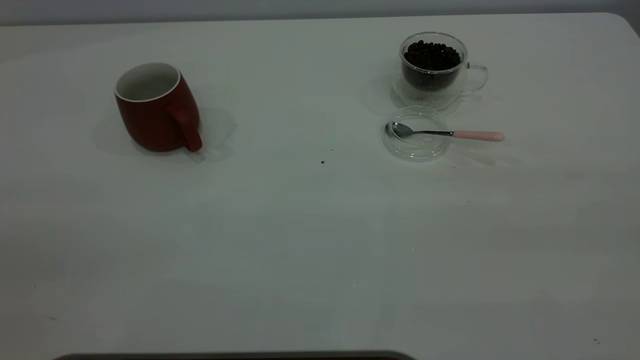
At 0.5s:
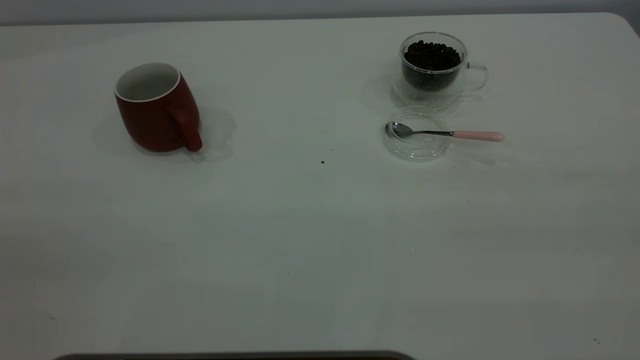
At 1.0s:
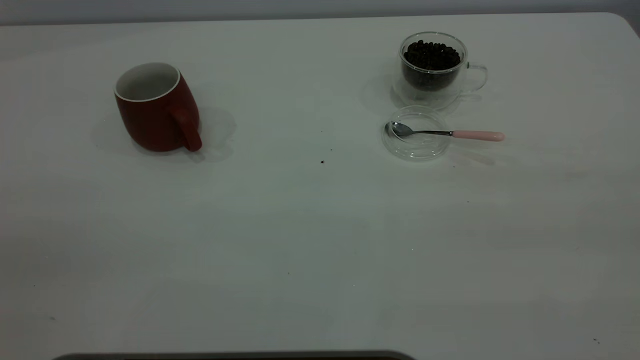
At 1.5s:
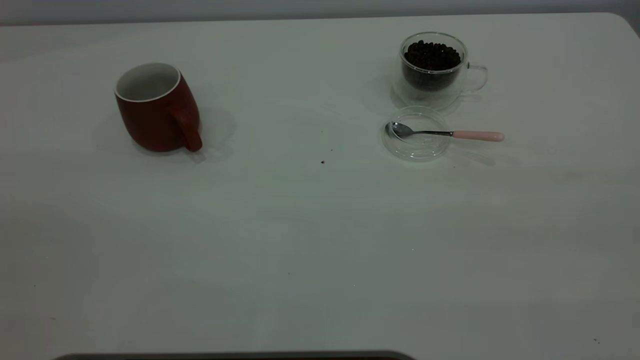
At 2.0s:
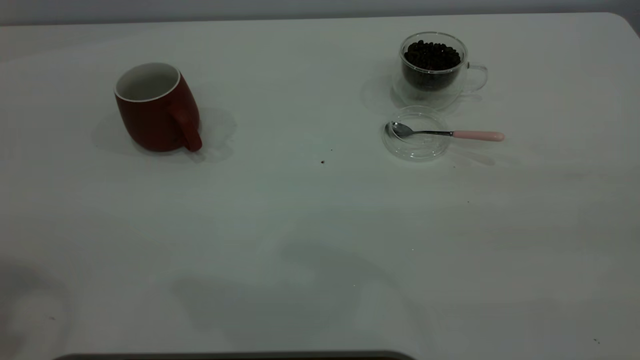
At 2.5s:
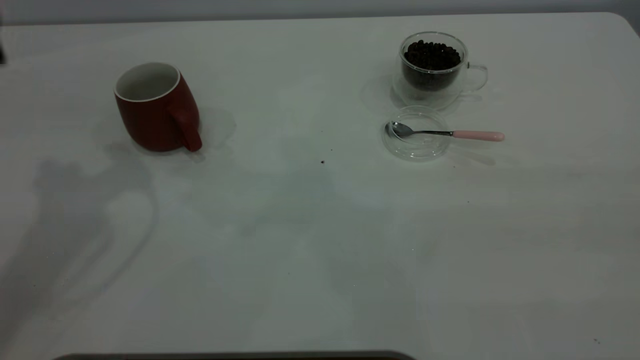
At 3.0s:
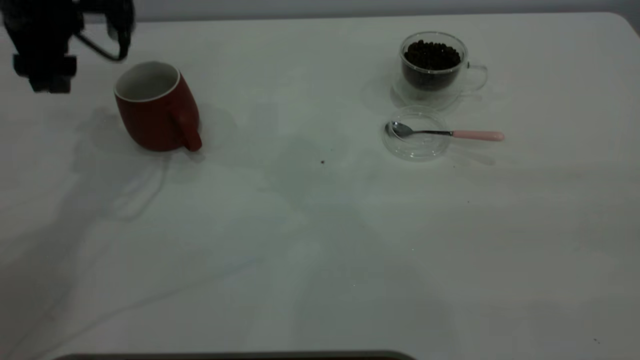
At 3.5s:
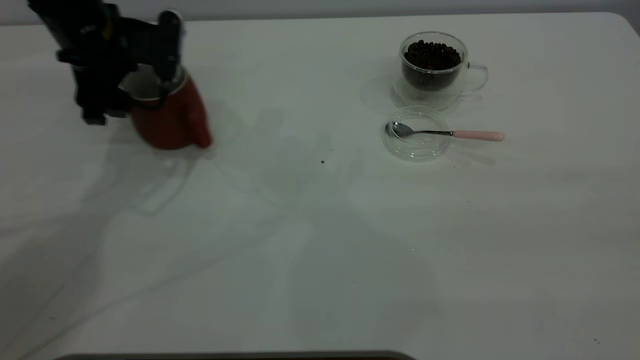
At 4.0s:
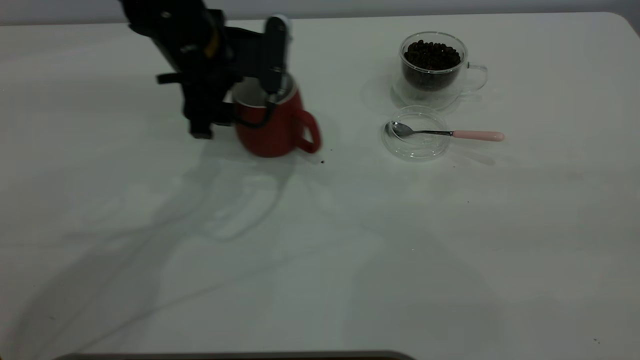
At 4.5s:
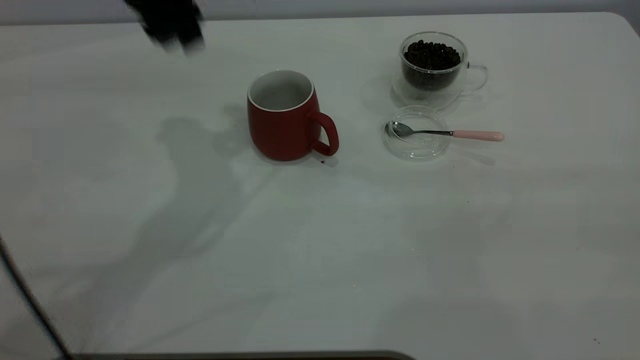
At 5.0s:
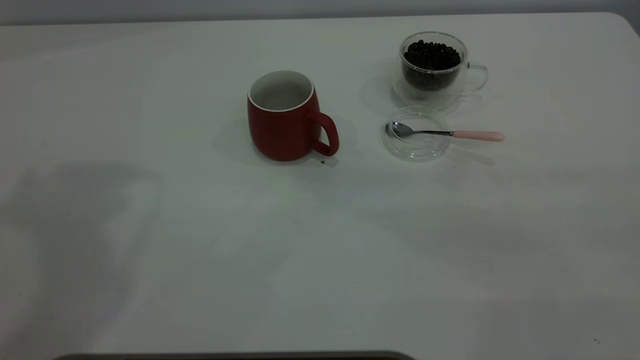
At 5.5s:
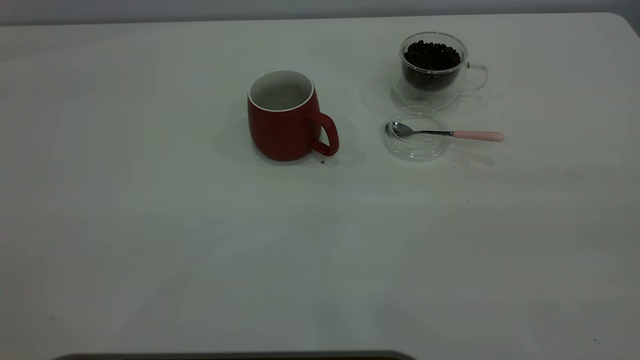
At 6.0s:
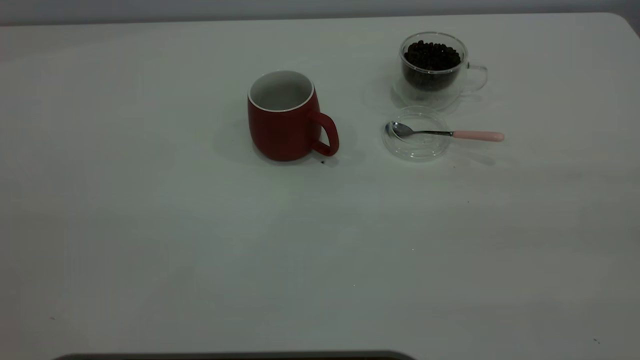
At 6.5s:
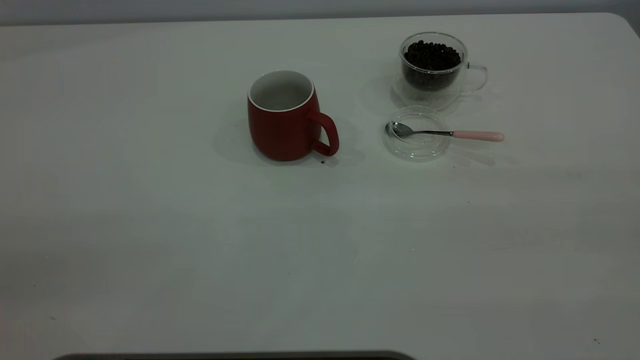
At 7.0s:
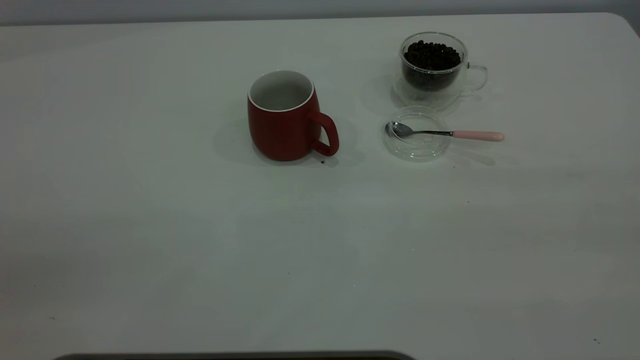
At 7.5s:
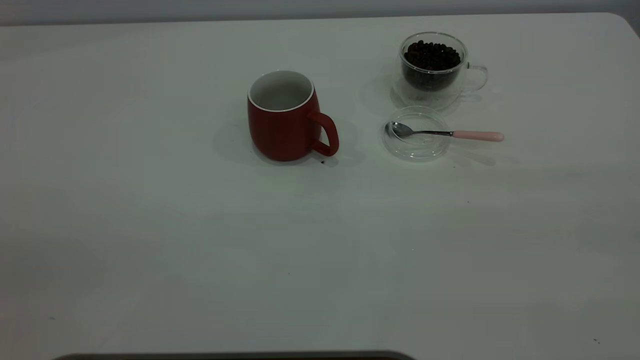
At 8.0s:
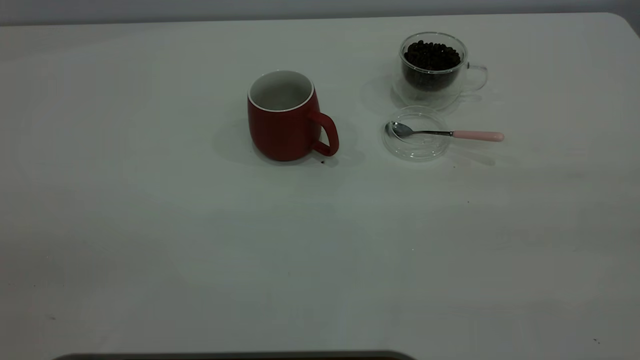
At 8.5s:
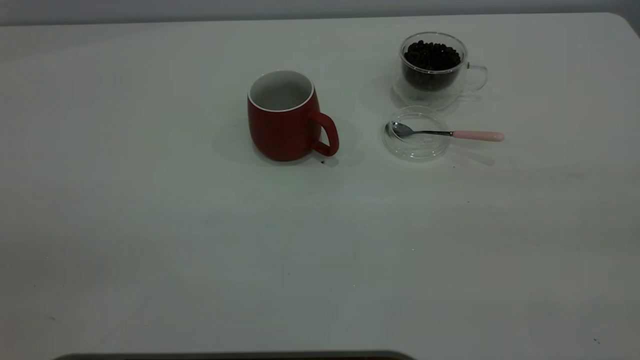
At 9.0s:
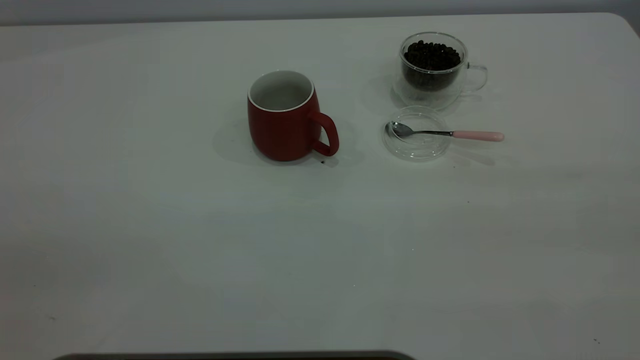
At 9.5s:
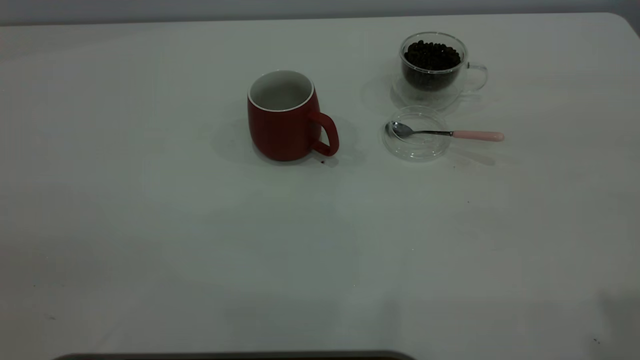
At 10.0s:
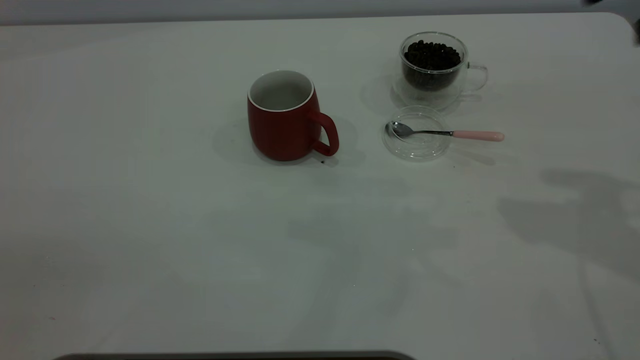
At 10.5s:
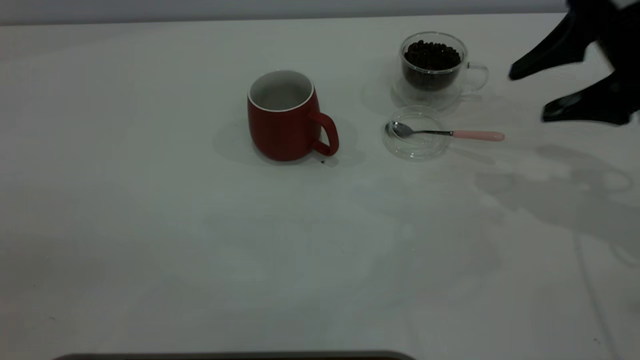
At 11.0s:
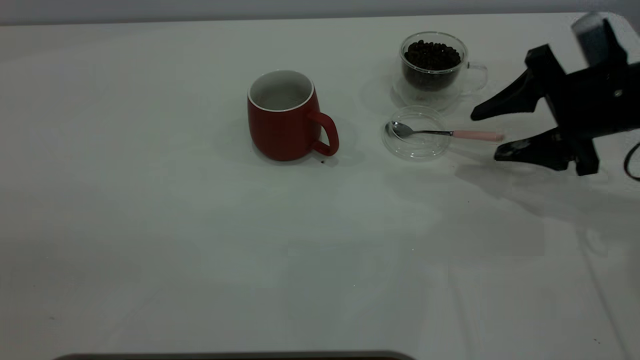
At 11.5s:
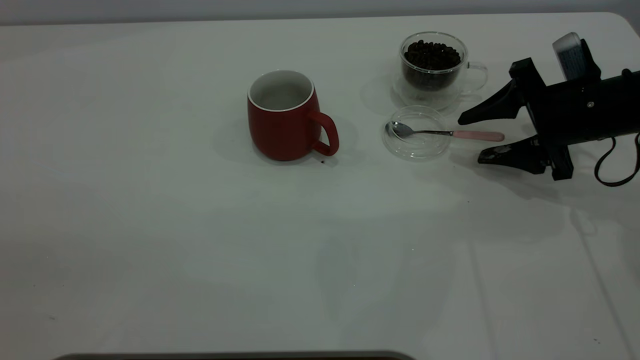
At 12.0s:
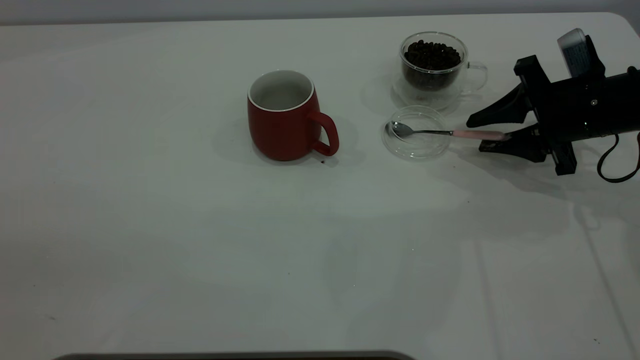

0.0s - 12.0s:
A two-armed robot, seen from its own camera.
Task of the whole recording: the left gripper place the red cup in the center of the table, the right gripper take the pink spoon from the cup lid and scoop out the coffee beans from the coffee cup and put them into the red cup, the right gripper put the spoon back into the cup lid.
Step, 0.0s - 4.0s: Move the cup to the center of view.
2.0s - 4.0s: The left gripper is displaced downward, forward and to the right by approximately 40 cm.
4.0s - 6.0s: The left gripper moves backward, upward and to the left, about 50 cm.
10.0s - 12.0s: The right gripper heads downward, covering approximately 25 cm, and closes up.

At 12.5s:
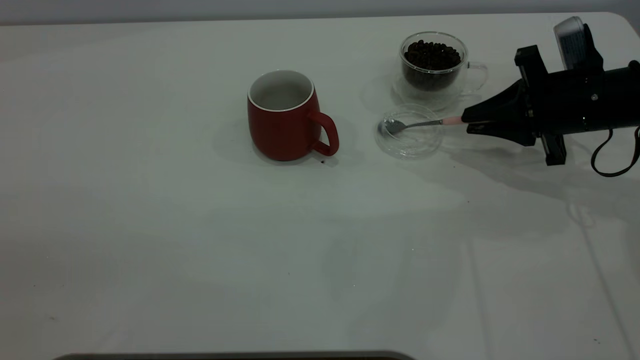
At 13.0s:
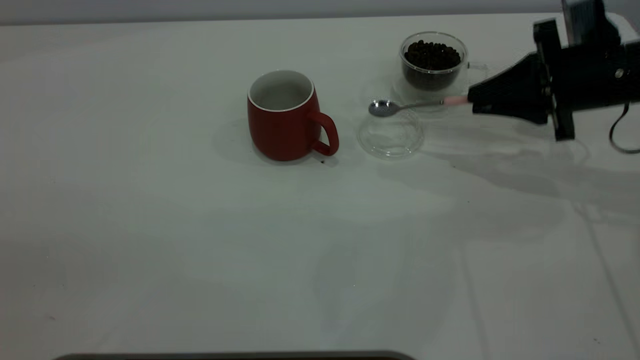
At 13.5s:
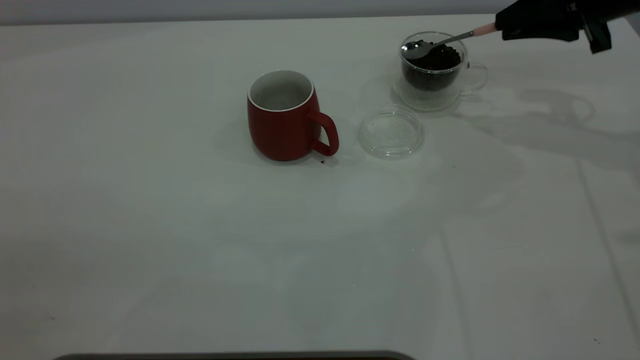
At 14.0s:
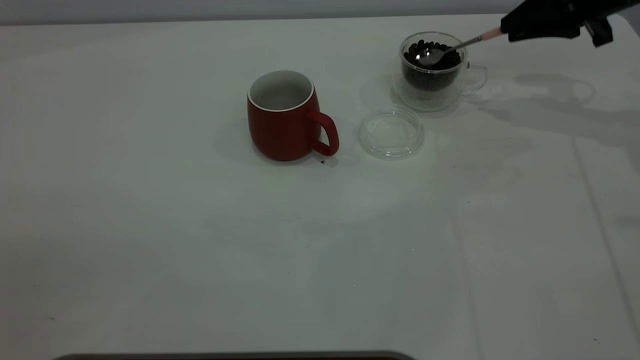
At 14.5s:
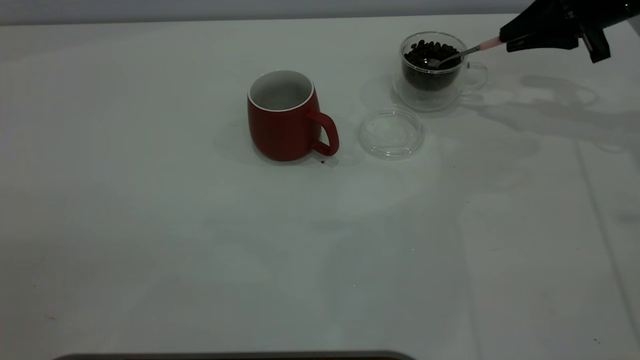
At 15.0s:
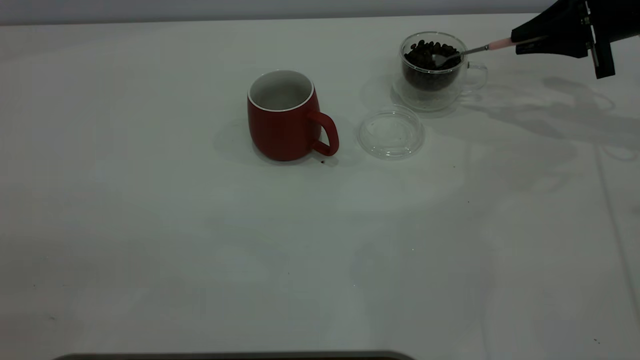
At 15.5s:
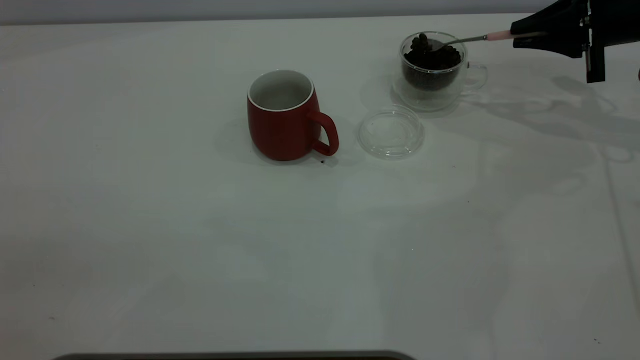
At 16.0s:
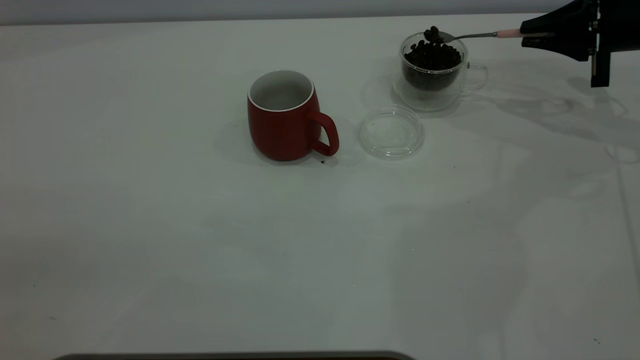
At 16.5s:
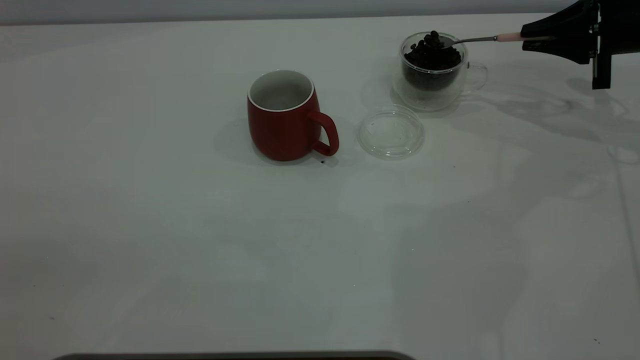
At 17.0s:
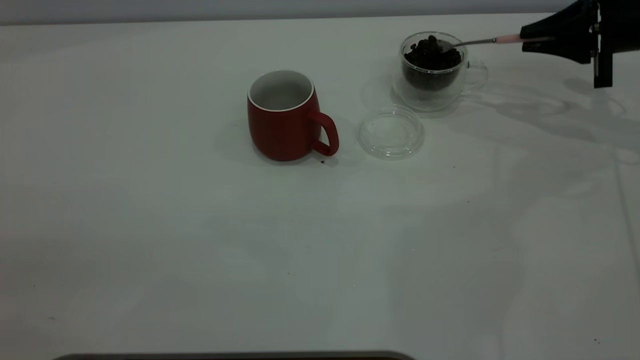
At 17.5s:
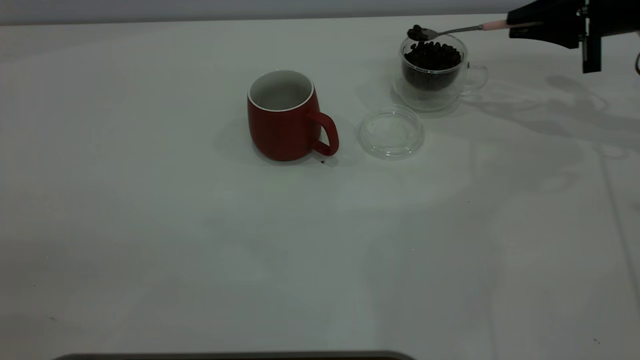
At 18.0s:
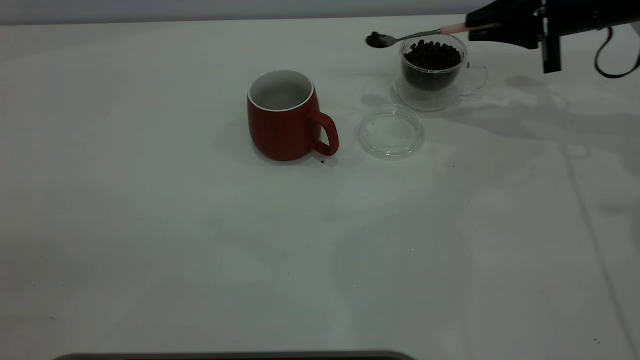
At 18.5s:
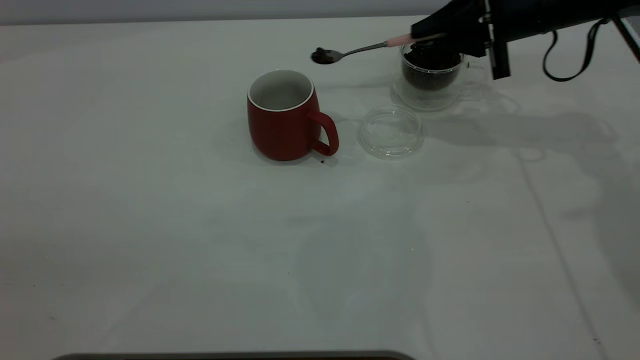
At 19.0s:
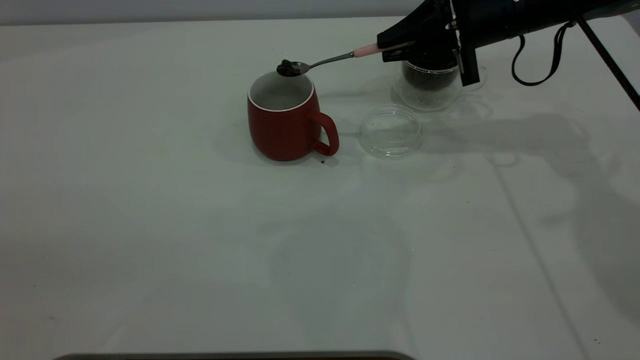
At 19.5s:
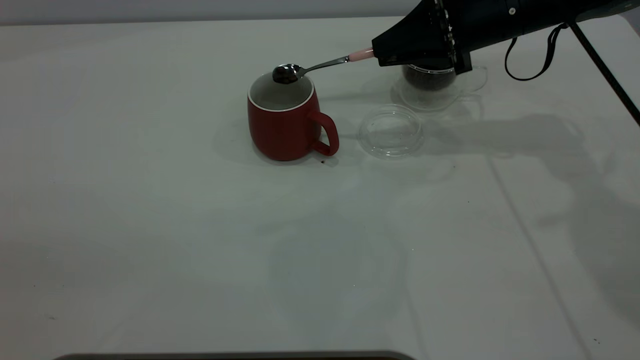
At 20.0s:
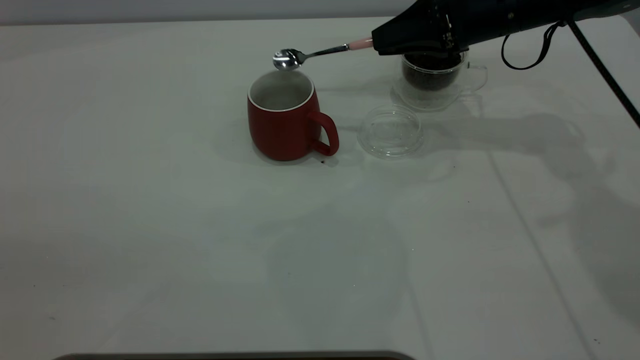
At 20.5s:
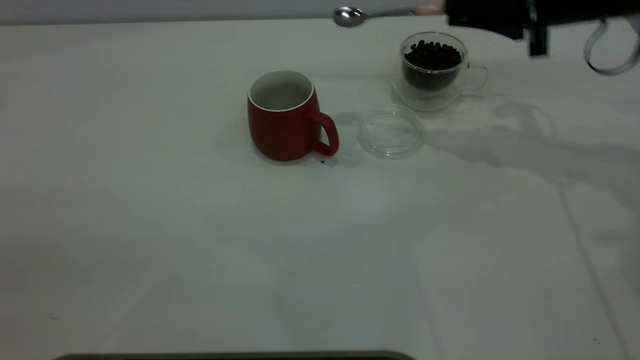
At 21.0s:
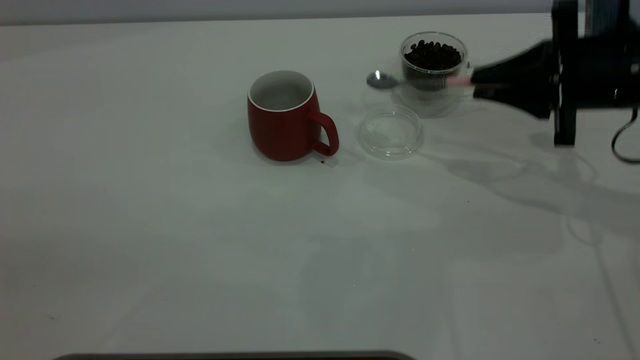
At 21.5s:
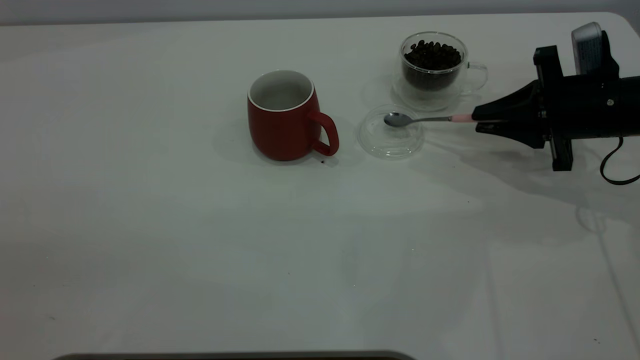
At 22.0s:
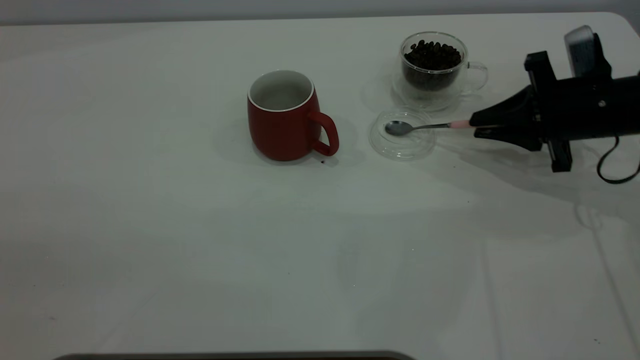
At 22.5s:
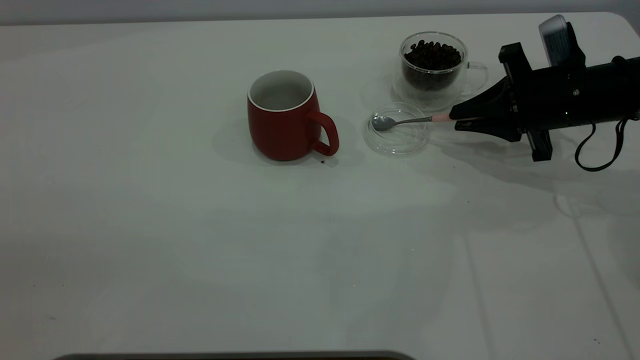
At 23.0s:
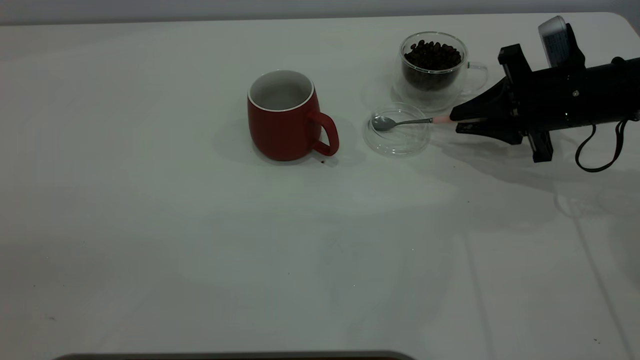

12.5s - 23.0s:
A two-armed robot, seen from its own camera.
Task of the whole recording: the left gripper place the red cup in the center of the table, the right gripper take the pink spoon from the cup lid and scoop out the coffee beans from the coffee cup and put them into the red cup, the right gripper put the spoon back into the cup lid.
Step, 13.5s - 20.0s: Scoop a spoonful of beans into the cup.
12.5s - 14.5s: The right gripper shifts roughly 10 cm forward and upward.
14.5s - 16.5s: The right gripper moves some 5 cm.
16.5s - 19.0s: The right gripper heads to the left, covering some 15 cm.
19.0s - 21.0s: The right gripper moves backward and to the right, approximately 15 cm.
21.0s - 23.0s: The right gripper moves roughly 5 cm.
